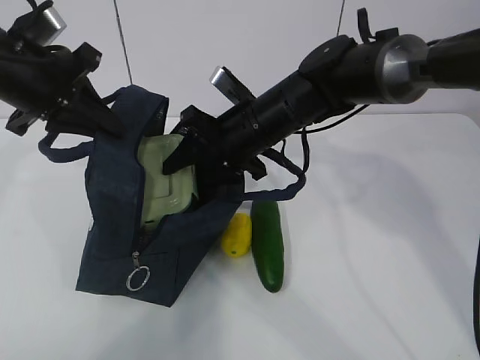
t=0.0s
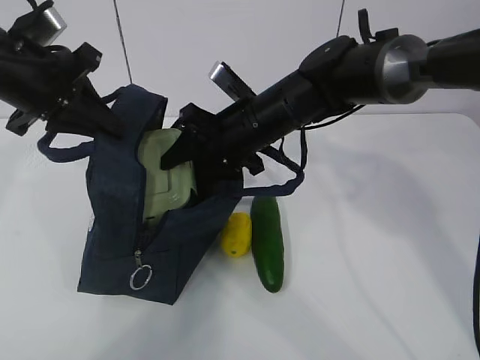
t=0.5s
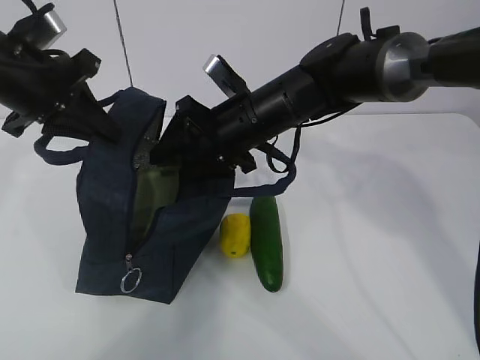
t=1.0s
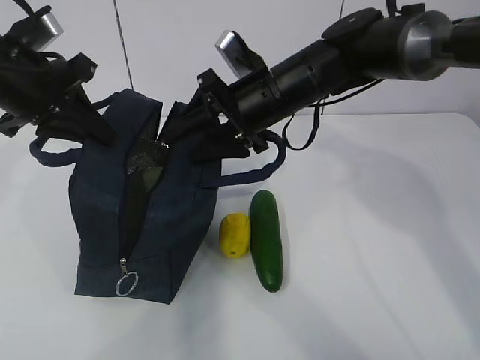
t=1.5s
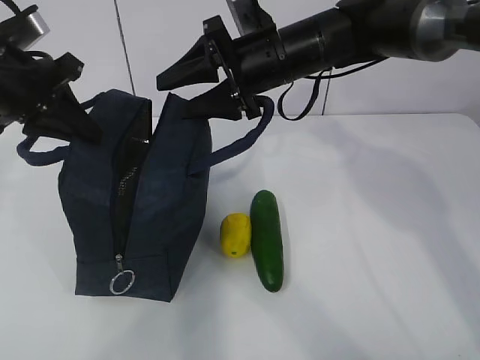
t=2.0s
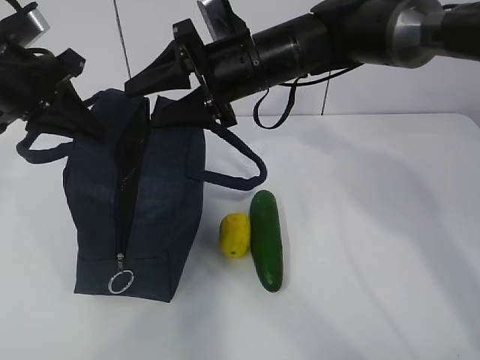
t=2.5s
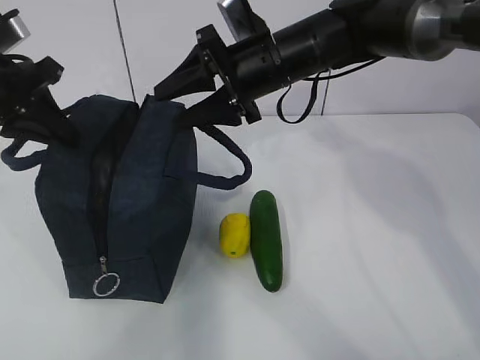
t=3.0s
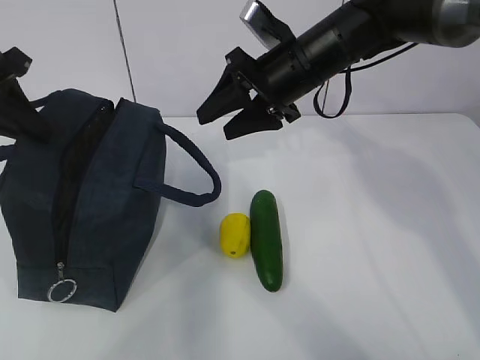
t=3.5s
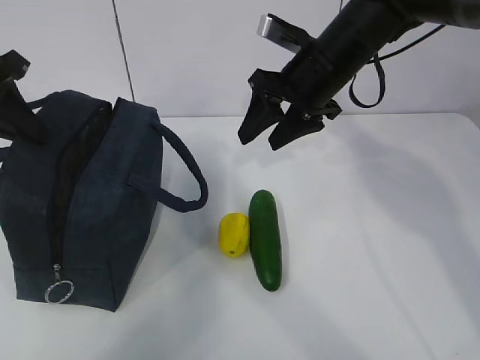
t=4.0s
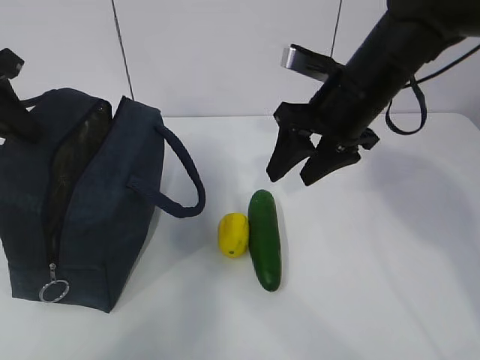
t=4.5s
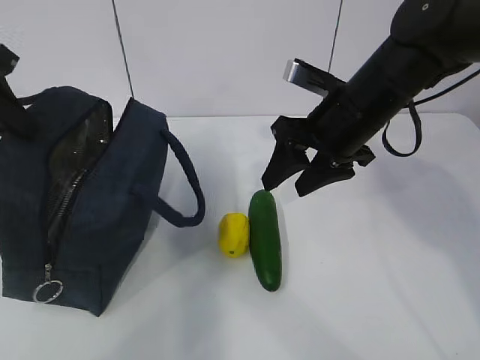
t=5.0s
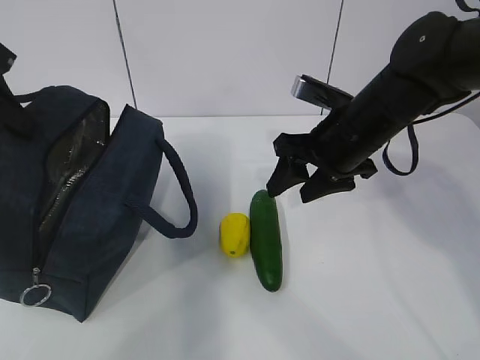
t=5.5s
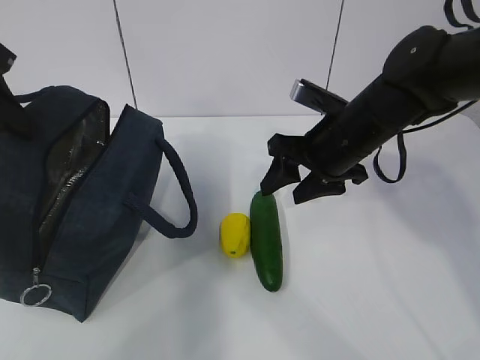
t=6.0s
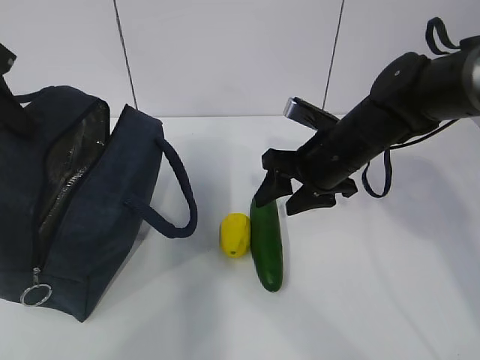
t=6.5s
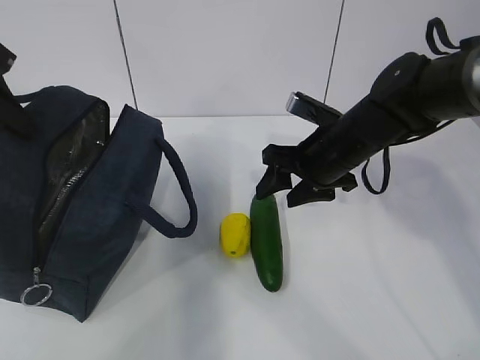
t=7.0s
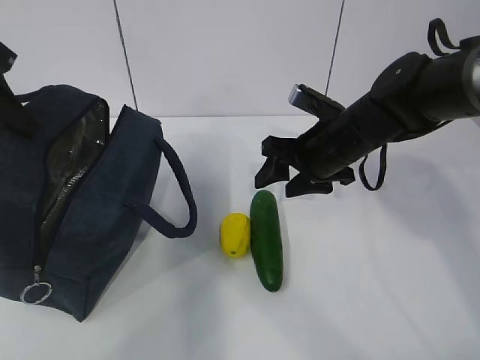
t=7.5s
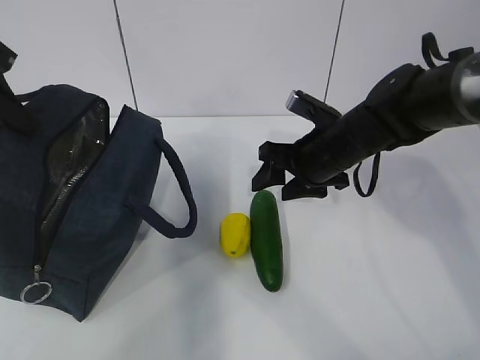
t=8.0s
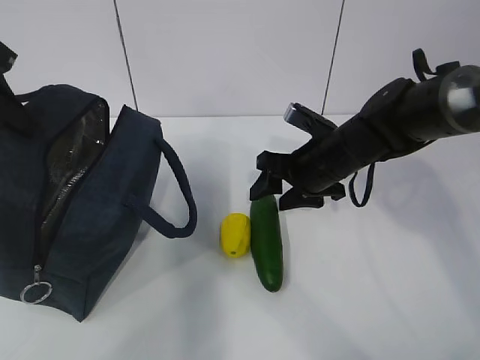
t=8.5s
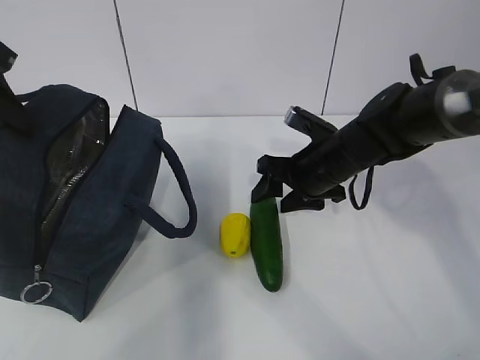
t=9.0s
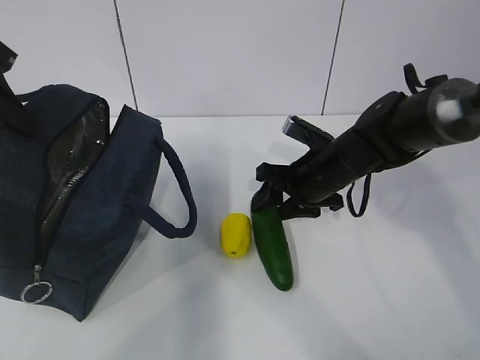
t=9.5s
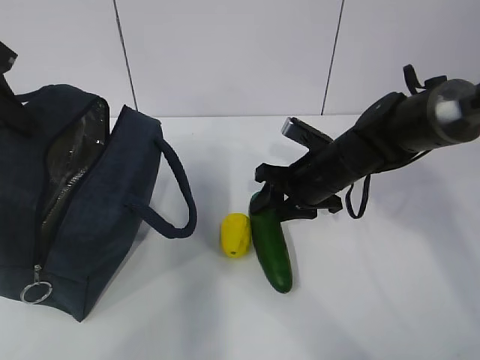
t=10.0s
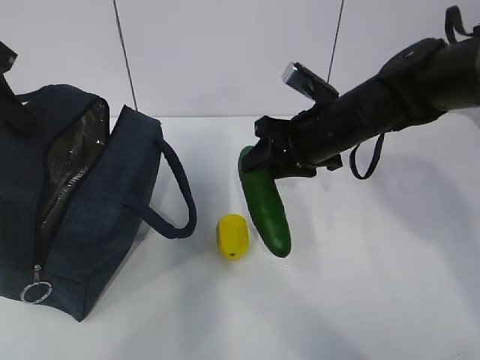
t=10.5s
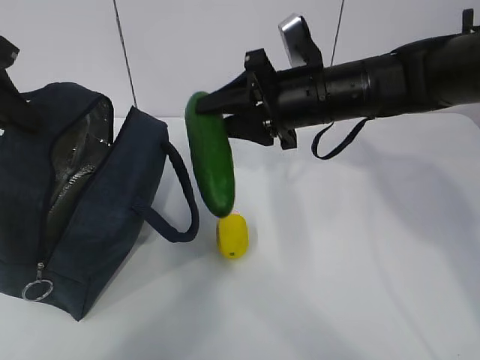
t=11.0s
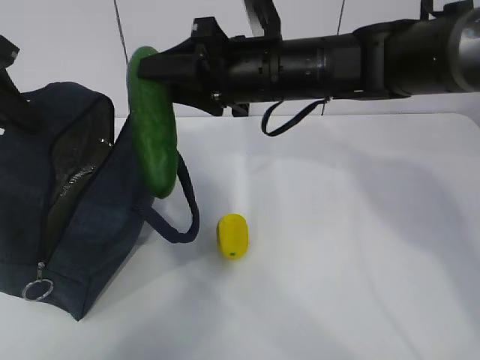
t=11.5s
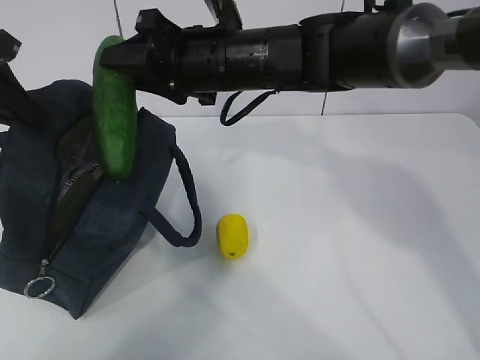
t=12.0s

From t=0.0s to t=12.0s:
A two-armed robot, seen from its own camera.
Step, from t=0.0s to t=3.0s: Grab the cucumber with your right hand.
Step, from t=3.5s to t=7.0s: Place it into the bag with your right hand.
From t=0.0s to t=2.0s: The right gripper is displaced upward by roughly 5 cm.
From t=2.0s to t=4.0s: The right gripper goes roughly 5 cm to the right.
From t=4.0s to t=6.0s: The right gripper shifts approximately 5 cm downward.
From t=6.0s to t=8.0s: The grippers stay close to where they were, moving slightly.
From t=8.0s to t=10.0s: There are only small adjustments of the grippers.
From t=10.0s to t=12.0s: The right gripper travels upward and to the left by about 20 cm.

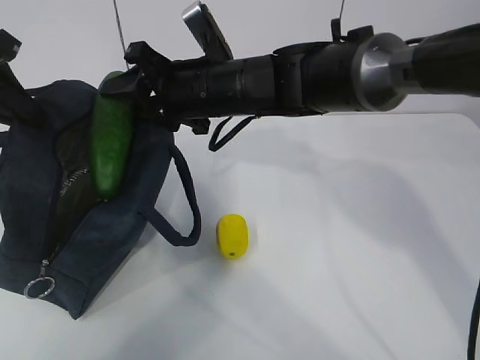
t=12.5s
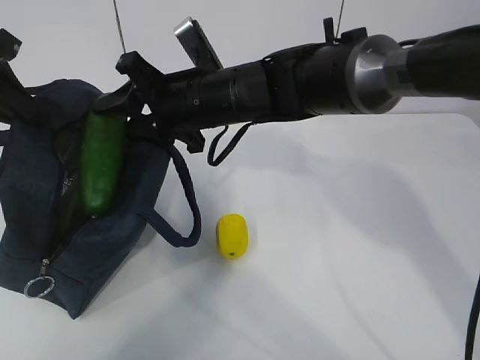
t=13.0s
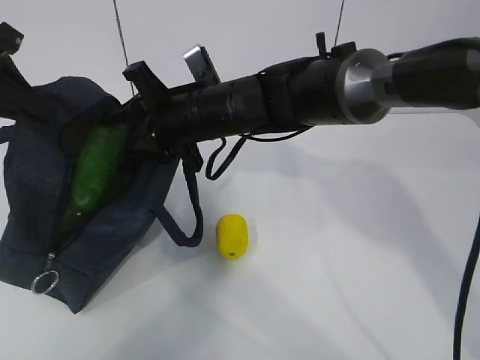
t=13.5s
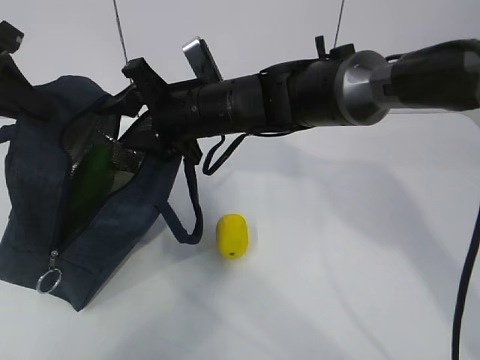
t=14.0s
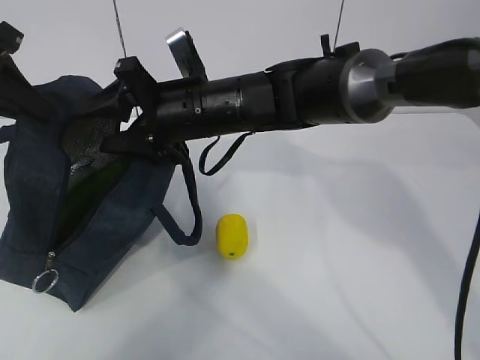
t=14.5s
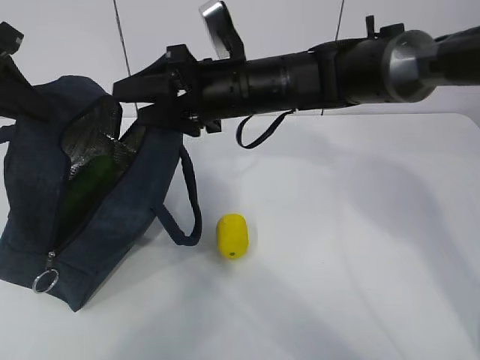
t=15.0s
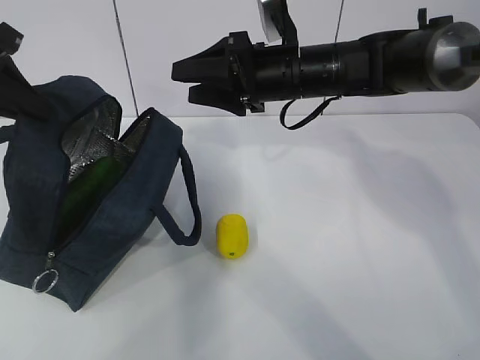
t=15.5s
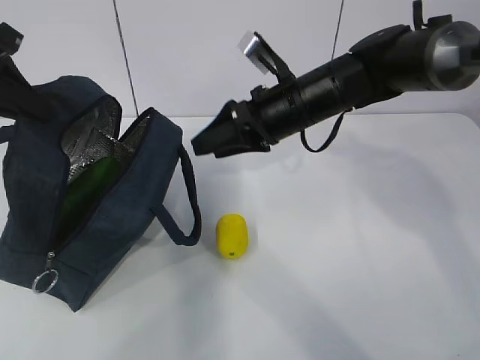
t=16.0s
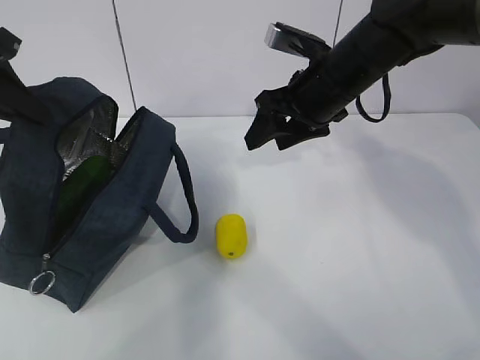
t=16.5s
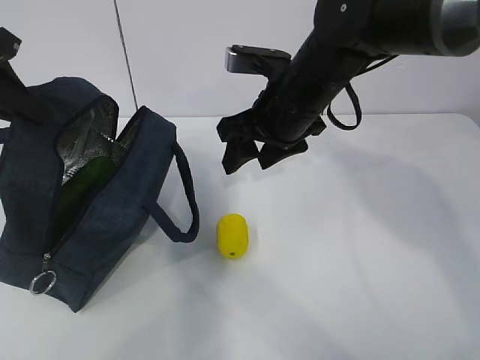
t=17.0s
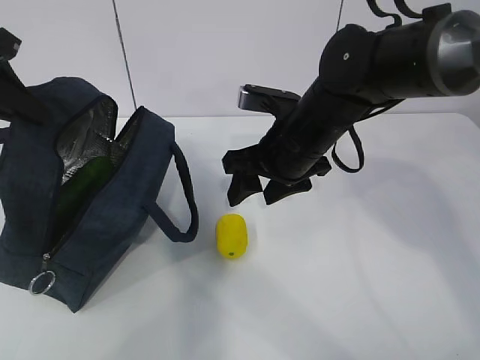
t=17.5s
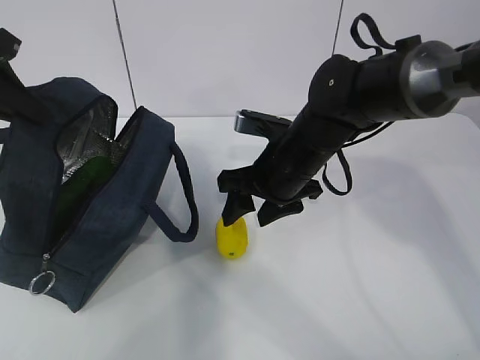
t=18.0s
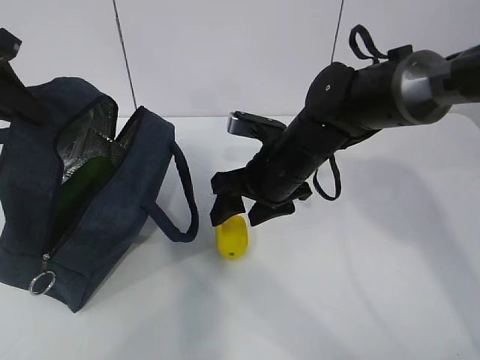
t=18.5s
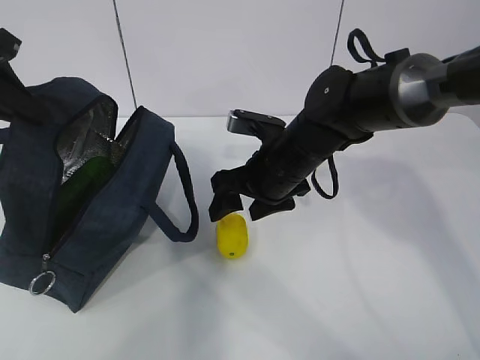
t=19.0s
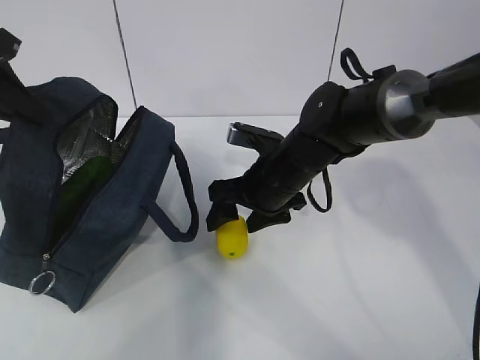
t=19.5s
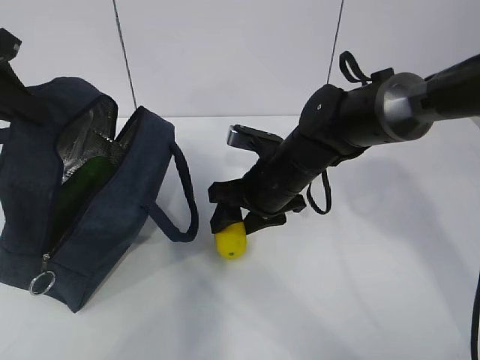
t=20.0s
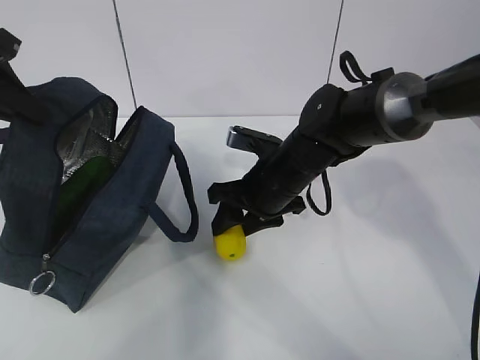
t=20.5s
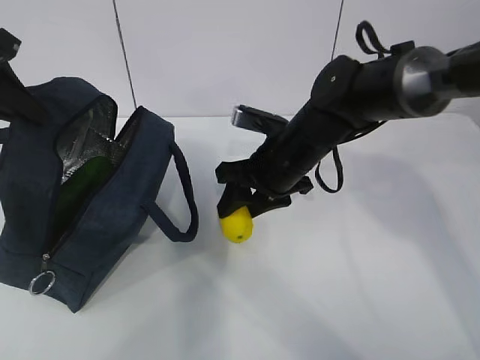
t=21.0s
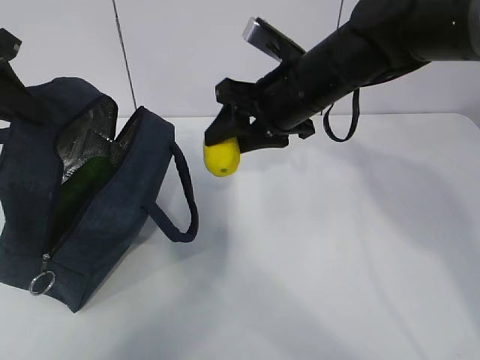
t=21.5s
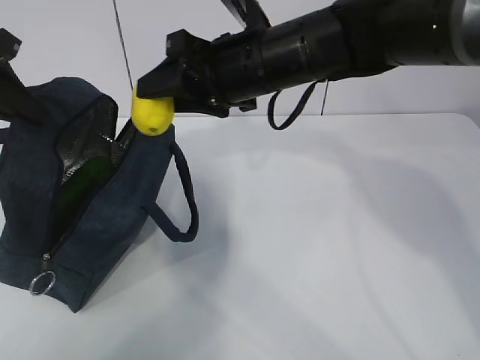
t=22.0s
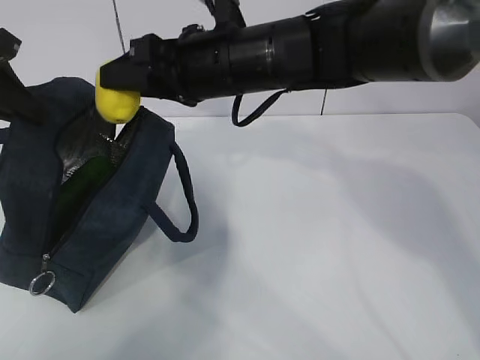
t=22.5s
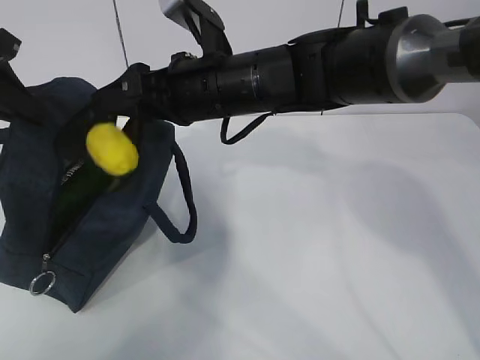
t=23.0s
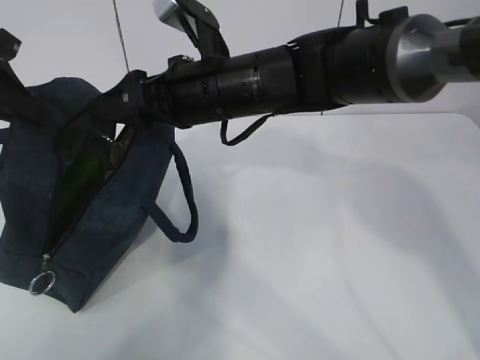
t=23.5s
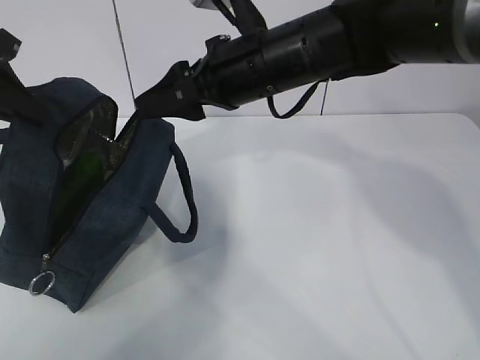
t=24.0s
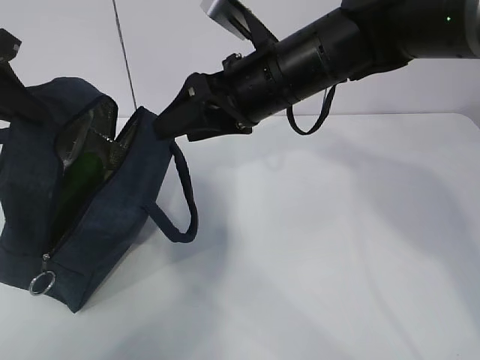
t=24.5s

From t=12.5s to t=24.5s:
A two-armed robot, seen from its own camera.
Step, from t=14.5s to t=17.0s: Grab the lunch bag with your right hand.
Step, from t=18.0s to t=21.5s: Move the lunch bag to the right.
From t=14.5s to t=16.5s: The right gripper goes approximately 15 cm to the right.
From t=16.5s to t=18.5s: The right gripper heads downward and to the left, covering roughly 10 cm.
From t=18.5s to t=20.5s: The grippers stay close to where they were, moving slightly.
From t=20.5s to t=22.5s: The right gripper heads upward, covering about 15 cm.

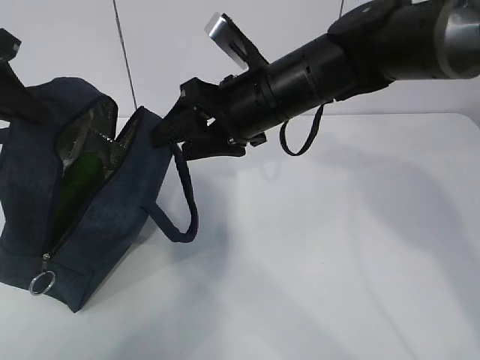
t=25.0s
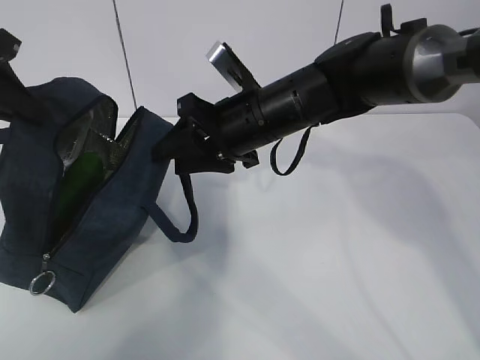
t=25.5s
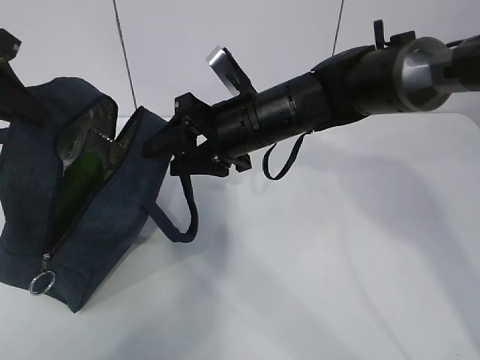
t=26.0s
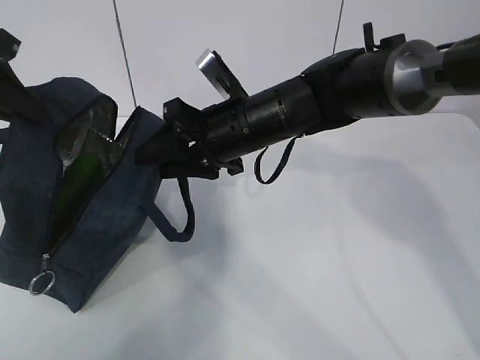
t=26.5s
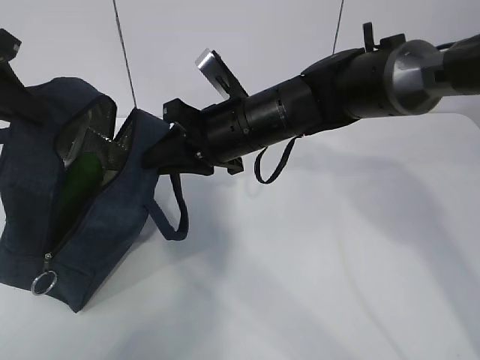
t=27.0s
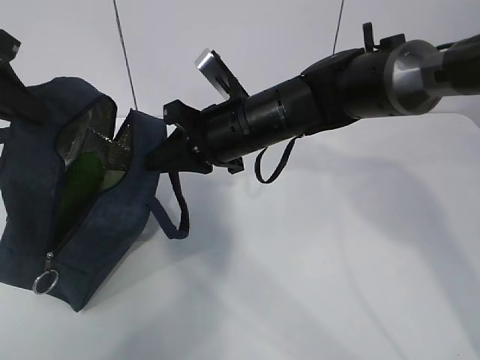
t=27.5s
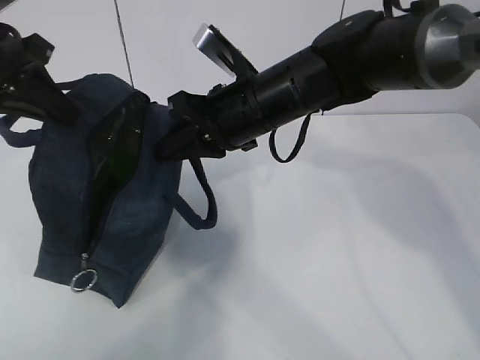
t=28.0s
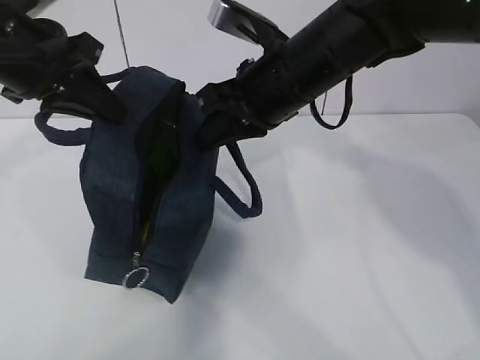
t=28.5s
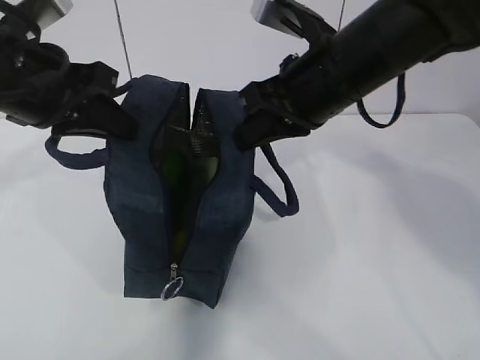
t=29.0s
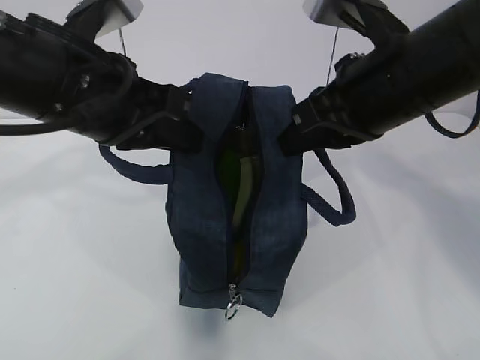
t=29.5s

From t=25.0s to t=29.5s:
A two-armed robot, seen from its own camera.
From t=25.0s to t=27.0s: The right gripper closes up.
From t=27.0s to t=29.5s: The left gripper goes about 20 cm to the right and backward. Meanwhile the right gripper is displaced to the right, upward and backward by some 15 cm.
